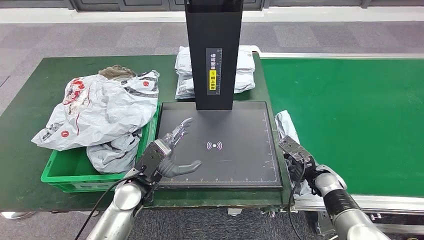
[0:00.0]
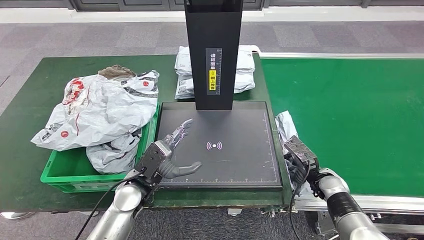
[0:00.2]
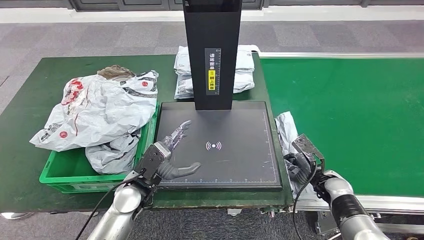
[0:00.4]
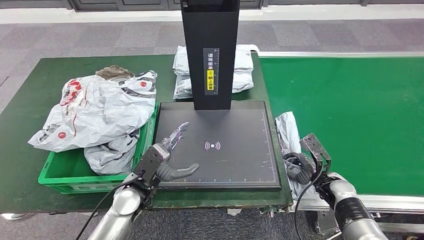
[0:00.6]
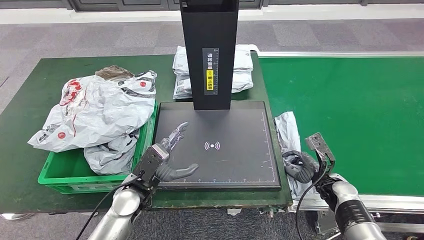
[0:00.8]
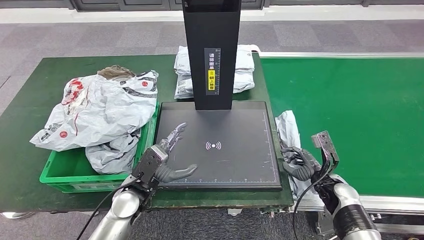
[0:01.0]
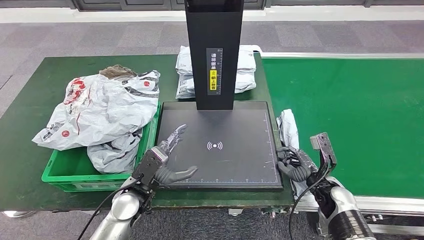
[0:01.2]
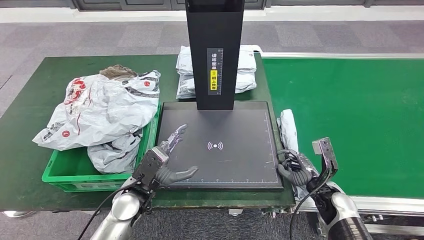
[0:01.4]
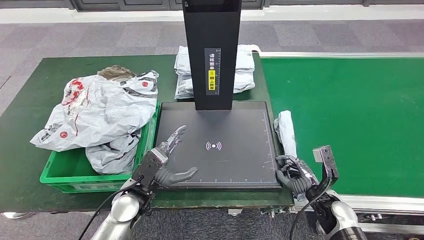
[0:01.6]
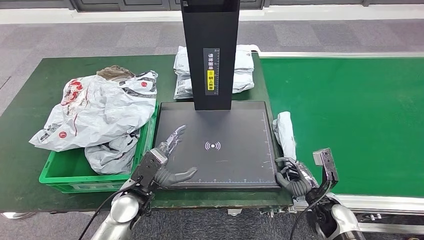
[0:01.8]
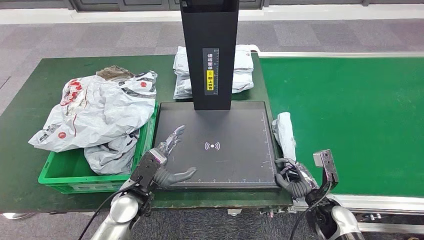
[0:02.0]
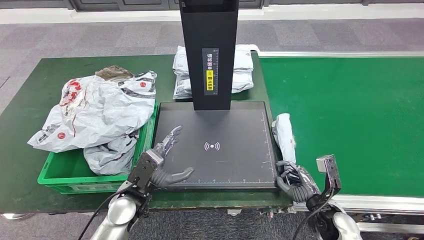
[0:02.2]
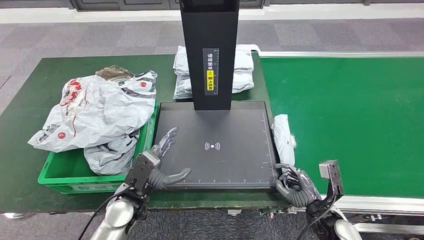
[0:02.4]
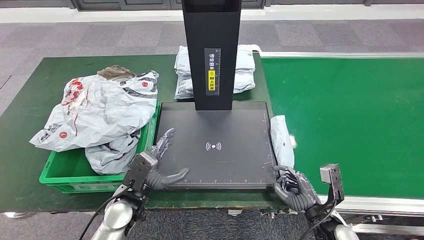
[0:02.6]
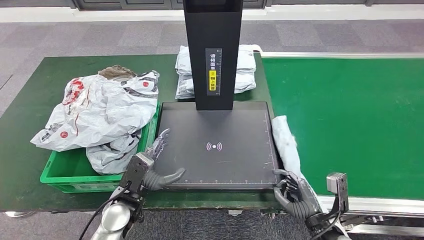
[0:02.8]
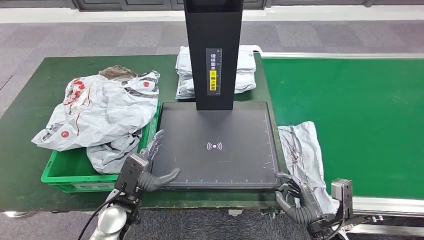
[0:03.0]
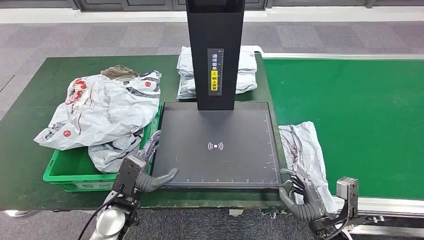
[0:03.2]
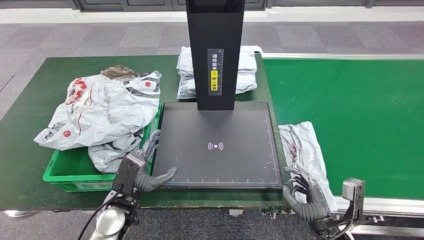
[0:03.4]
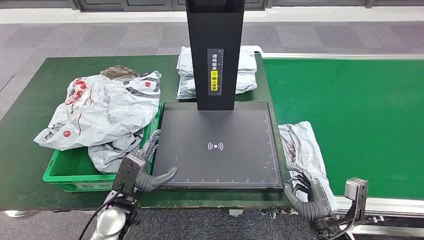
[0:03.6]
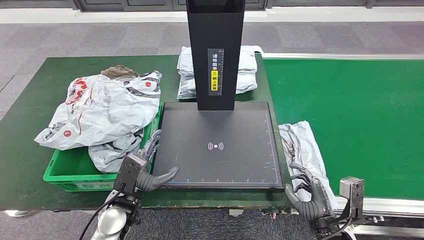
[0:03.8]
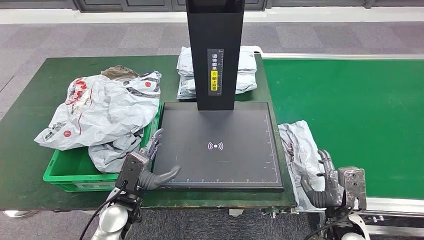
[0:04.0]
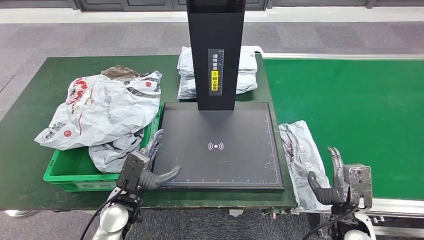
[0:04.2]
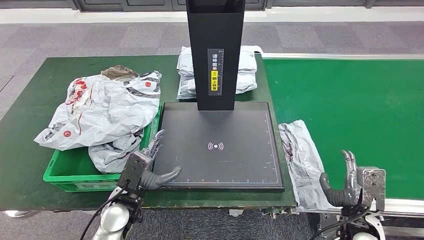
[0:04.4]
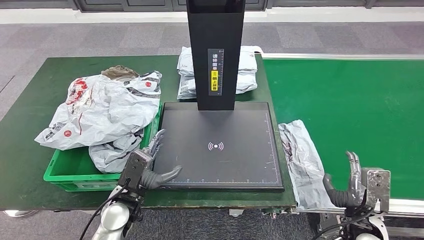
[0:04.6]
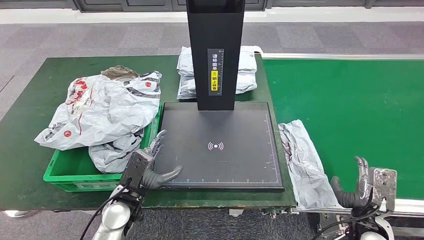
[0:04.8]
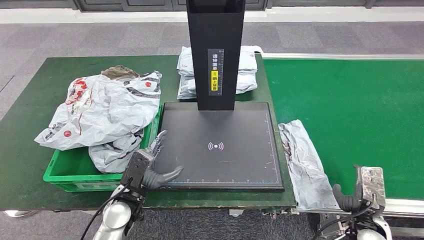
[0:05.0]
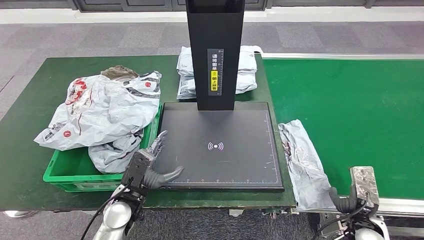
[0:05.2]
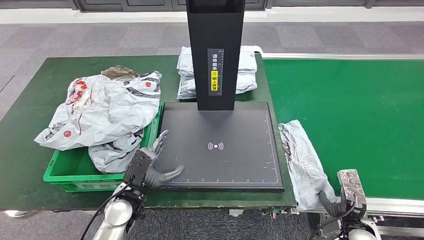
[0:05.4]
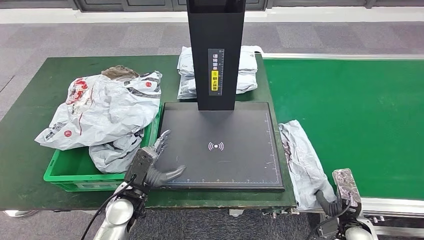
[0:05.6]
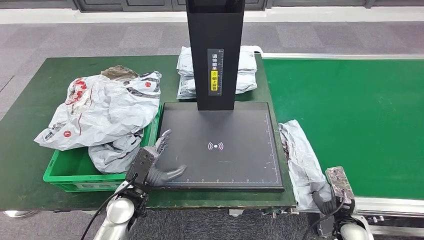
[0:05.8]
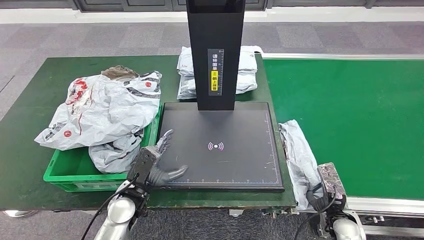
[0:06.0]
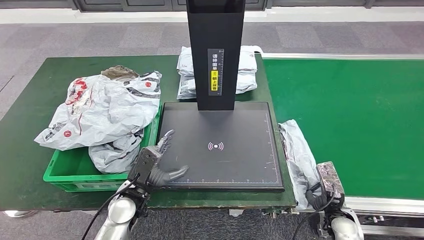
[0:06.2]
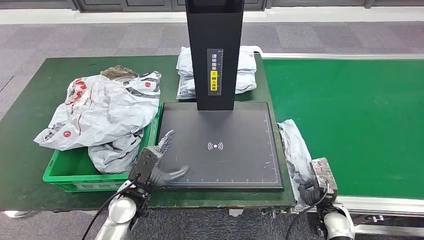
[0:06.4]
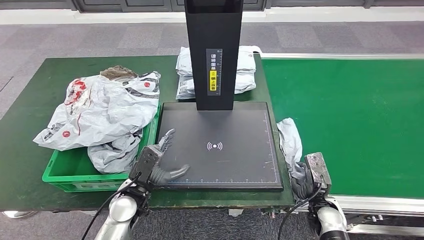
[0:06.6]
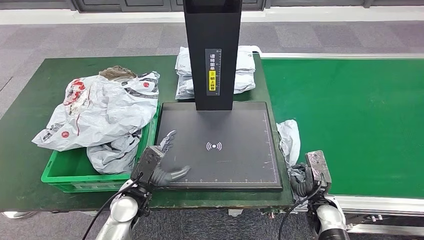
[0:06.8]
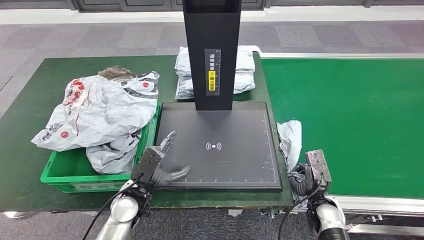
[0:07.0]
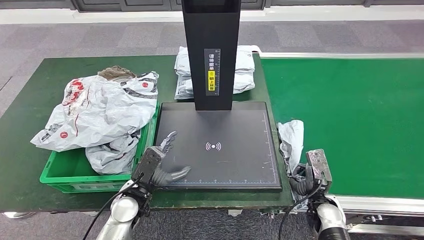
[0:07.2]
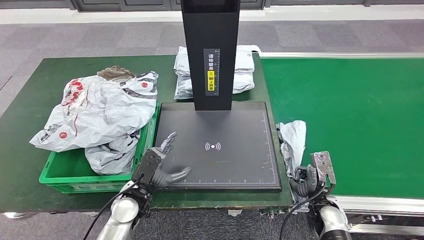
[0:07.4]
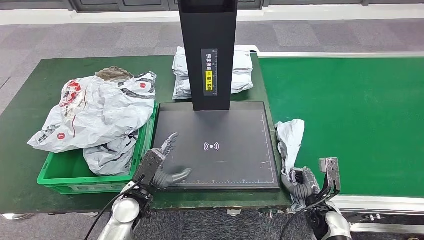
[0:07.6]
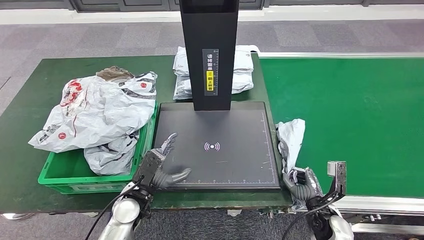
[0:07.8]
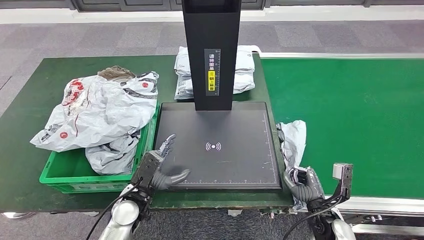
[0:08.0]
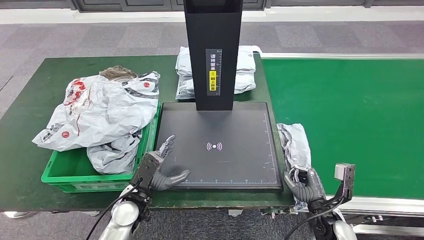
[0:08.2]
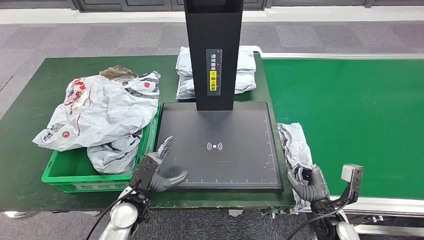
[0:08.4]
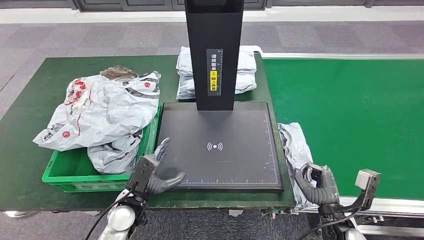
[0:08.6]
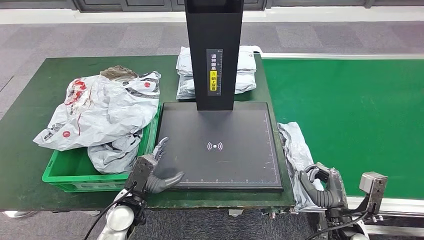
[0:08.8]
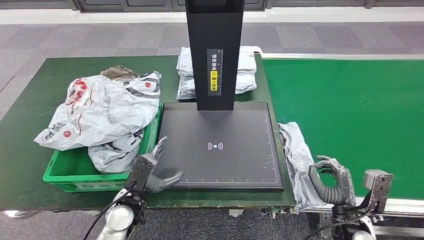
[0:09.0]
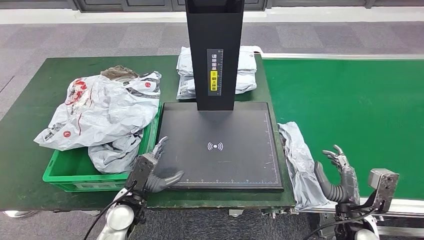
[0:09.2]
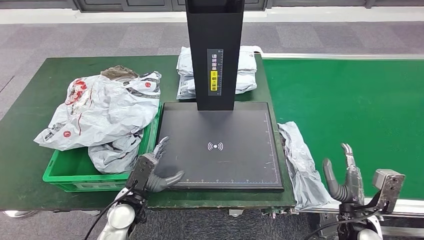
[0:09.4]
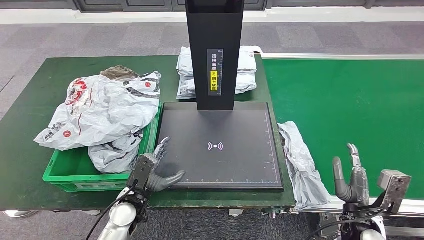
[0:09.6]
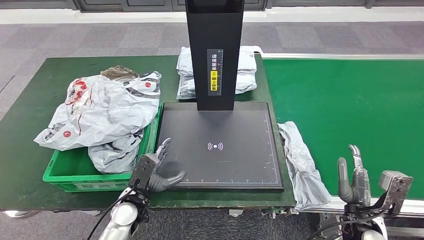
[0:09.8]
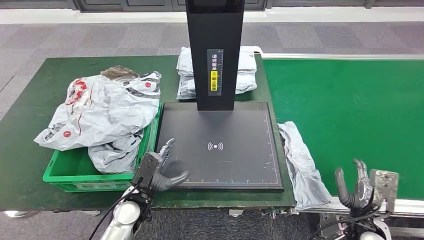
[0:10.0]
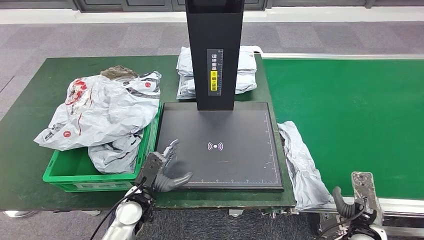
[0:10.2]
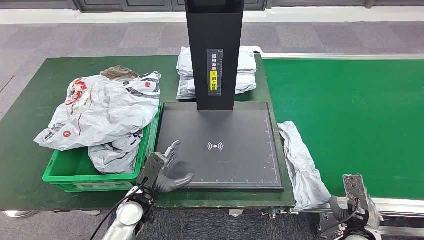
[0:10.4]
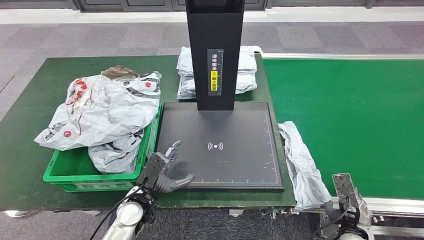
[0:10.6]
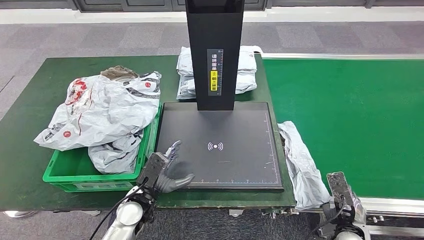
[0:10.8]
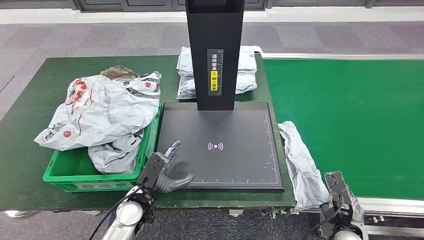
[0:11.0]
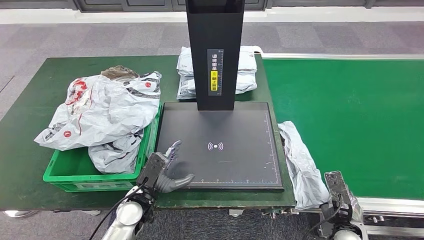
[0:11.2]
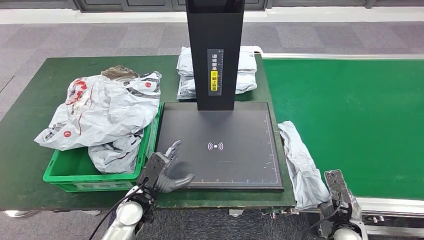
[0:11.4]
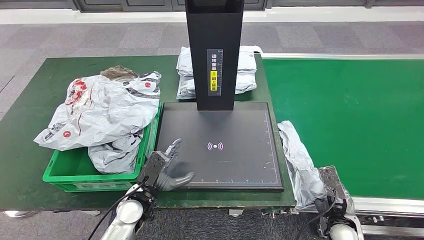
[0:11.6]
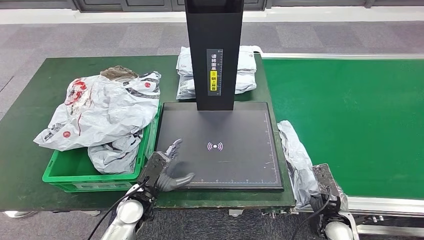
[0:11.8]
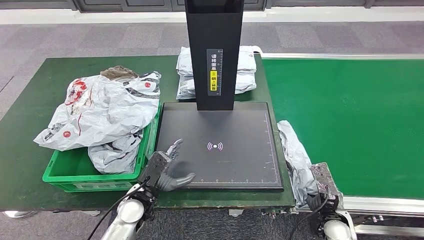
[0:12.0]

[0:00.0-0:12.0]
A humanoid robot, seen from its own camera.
0:00.0 to 0:01.6: The right hand shifts roughly 5 cm backward.
0:01.6 to 0:03.0: The right hand goes approximately 10 cm backward.
0:03.0 to 0:04.4: The right hand is displaced to the right by roughly 5 cm.
0:04.4 to 0:06.0: The right hand is displaced downward by some 10 cm.
0:09.0 to 0:10.4: The right hand goes about 5 cm downward.
0:10.4 to 0:12.0: The right hand shifts roughly 5 cm to the left.

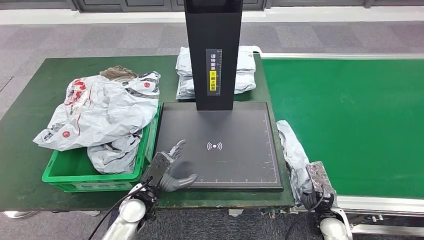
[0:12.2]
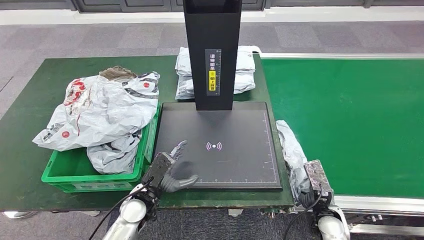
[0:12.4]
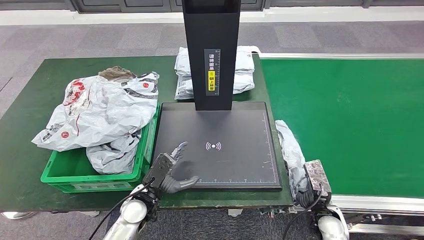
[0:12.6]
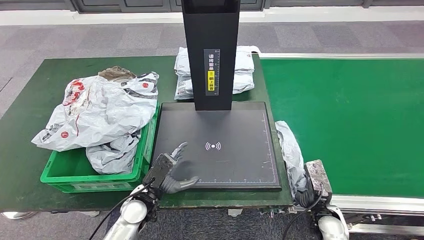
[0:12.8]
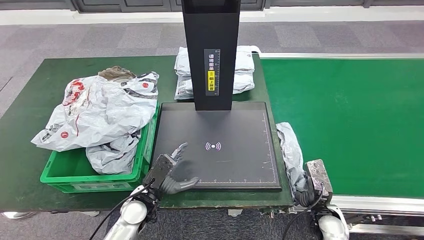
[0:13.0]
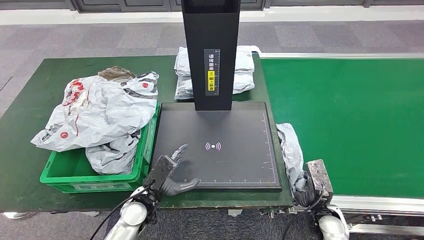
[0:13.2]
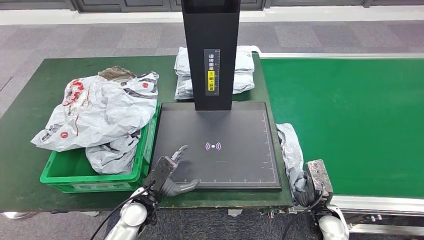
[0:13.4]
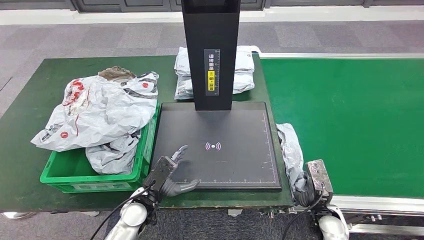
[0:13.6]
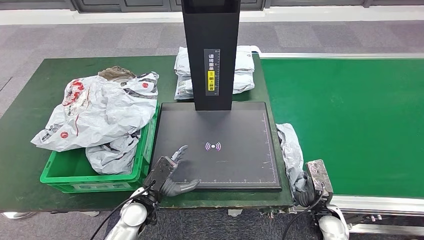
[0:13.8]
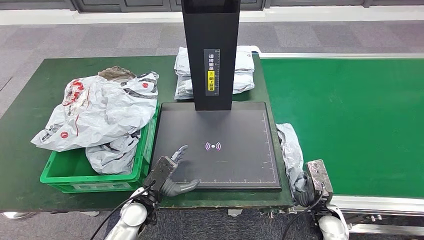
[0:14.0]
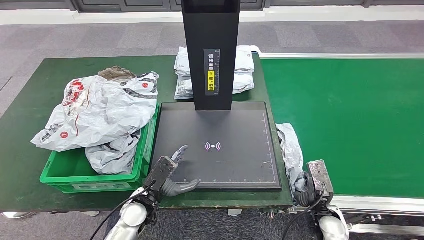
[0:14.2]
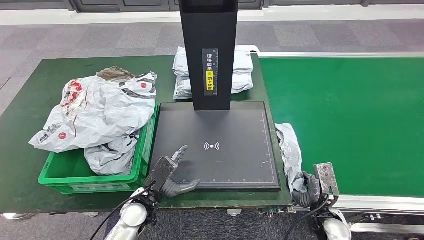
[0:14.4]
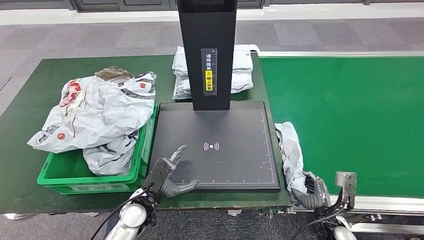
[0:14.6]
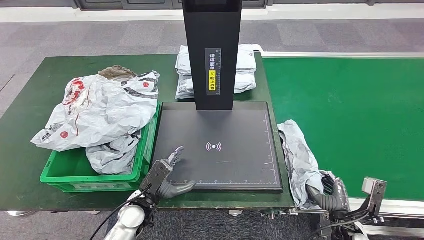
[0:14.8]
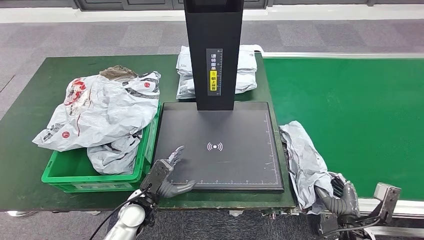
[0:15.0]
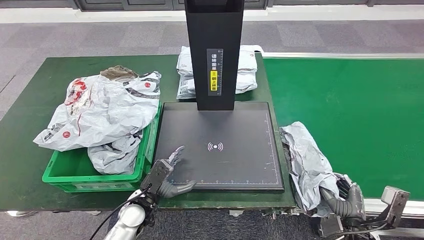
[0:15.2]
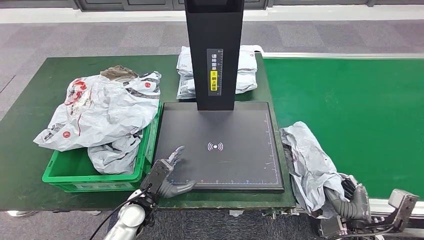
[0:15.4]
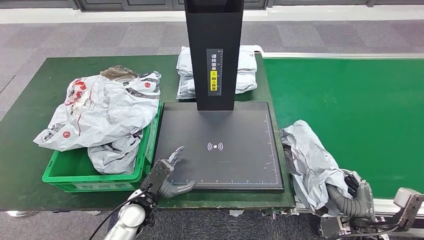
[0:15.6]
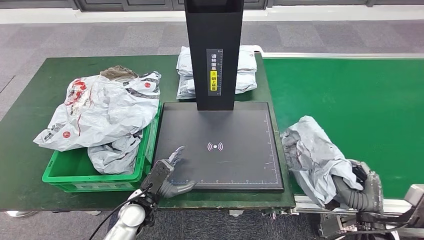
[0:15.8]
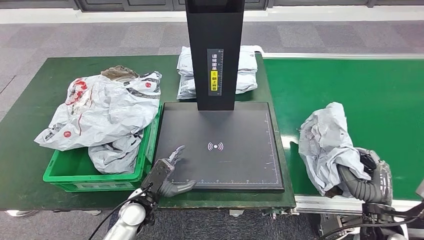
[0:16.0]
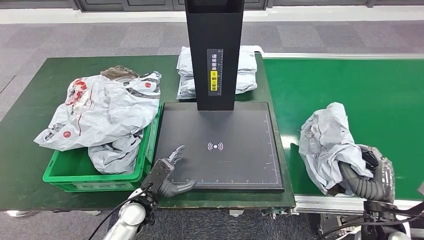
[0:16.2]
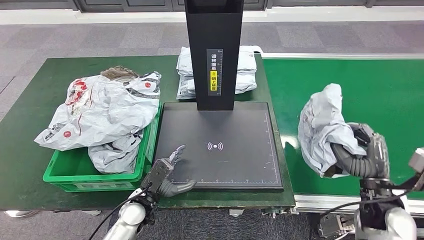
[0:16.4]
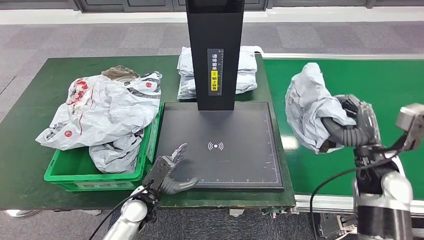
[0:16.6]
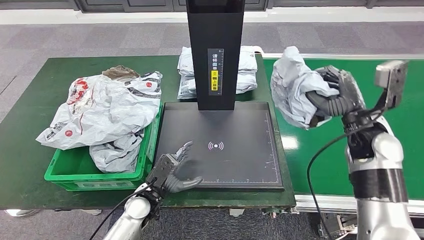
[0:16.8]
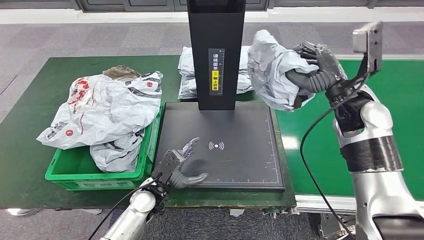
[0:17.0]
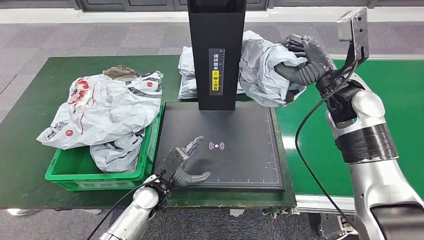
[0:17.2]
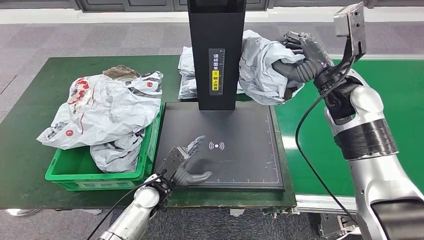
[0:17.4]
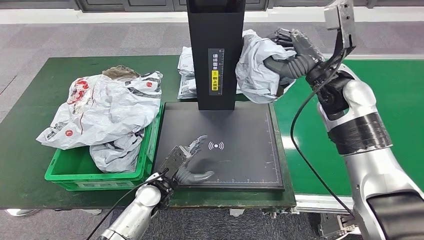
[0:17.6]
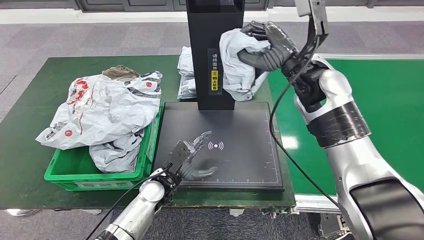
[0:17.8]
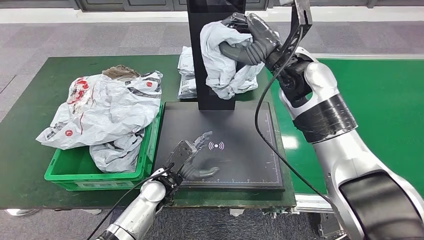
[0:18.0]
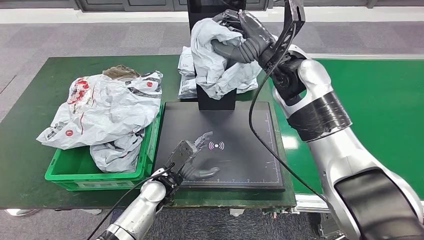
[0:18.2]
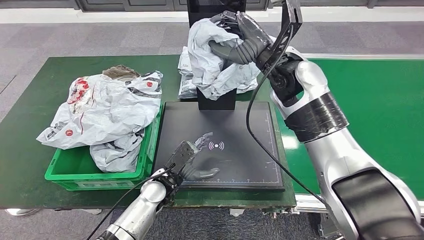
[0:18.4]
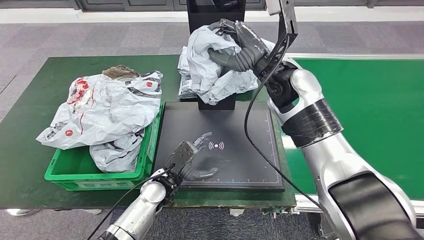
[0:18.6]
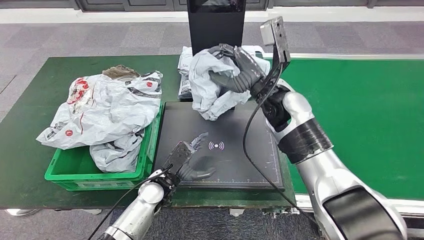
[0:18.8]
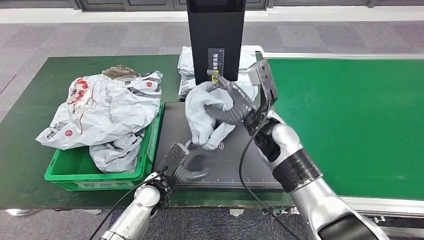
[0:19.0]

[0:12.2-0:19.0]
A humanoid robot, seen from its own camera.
Step, 0:12.2 to 0:16.4: Pick up the parcel from the conveyor belt.
0:12.2 to 0:13.6: The hands stay close to where they were, moving slightly.
0:13.6 to 0:15.0: The right hand travels to the right by roughly 5 cm.
0:15.0 to 0:16.2: The right hand heads upward, covering roughly 10 cm.
